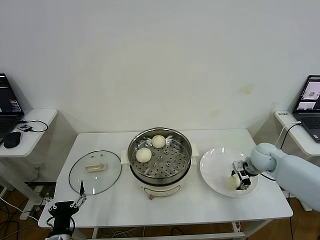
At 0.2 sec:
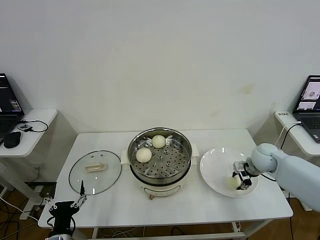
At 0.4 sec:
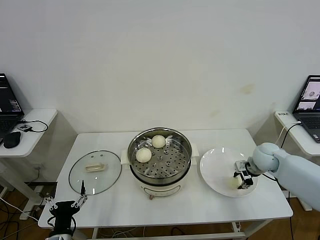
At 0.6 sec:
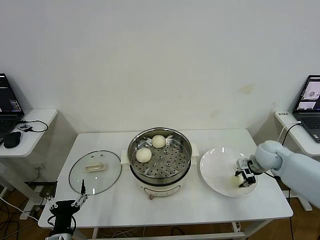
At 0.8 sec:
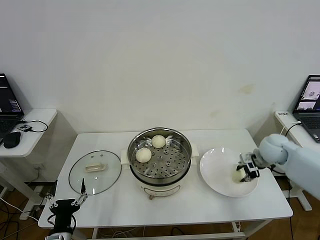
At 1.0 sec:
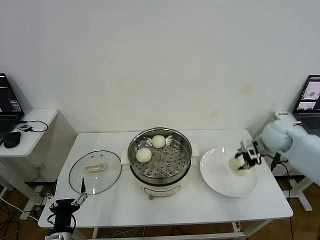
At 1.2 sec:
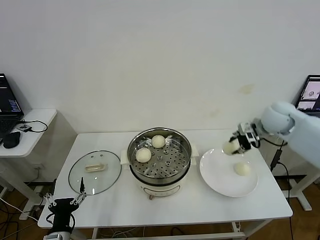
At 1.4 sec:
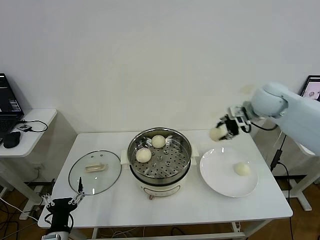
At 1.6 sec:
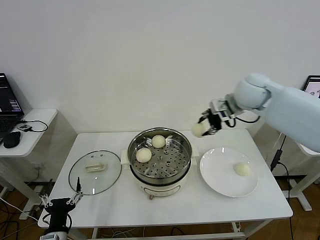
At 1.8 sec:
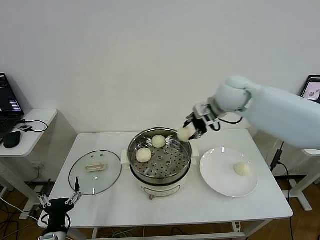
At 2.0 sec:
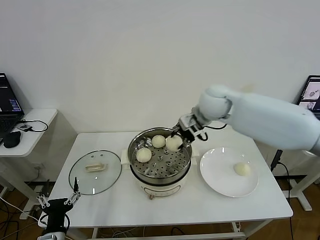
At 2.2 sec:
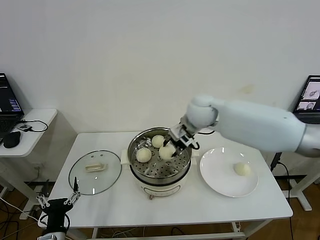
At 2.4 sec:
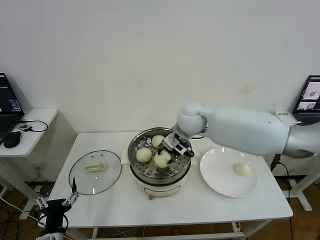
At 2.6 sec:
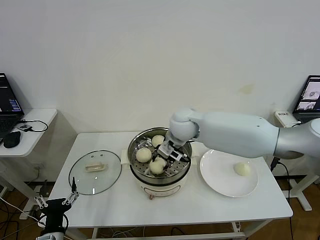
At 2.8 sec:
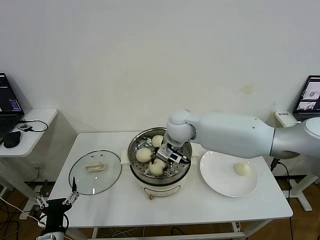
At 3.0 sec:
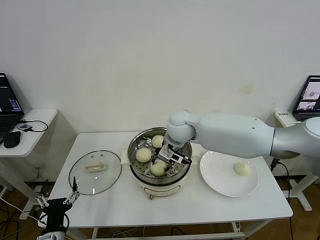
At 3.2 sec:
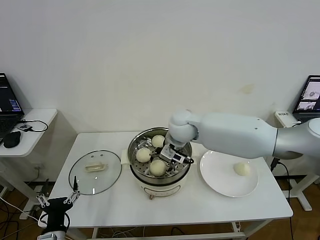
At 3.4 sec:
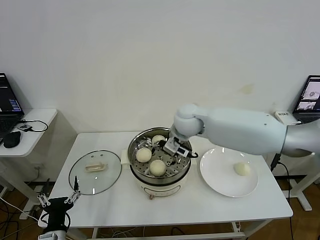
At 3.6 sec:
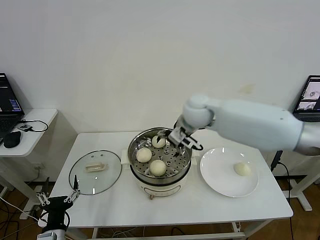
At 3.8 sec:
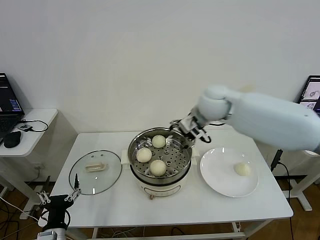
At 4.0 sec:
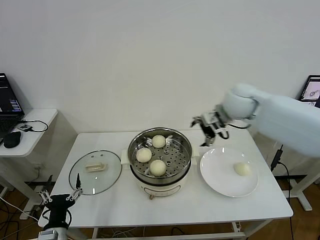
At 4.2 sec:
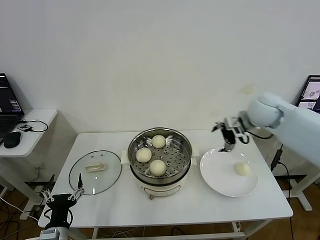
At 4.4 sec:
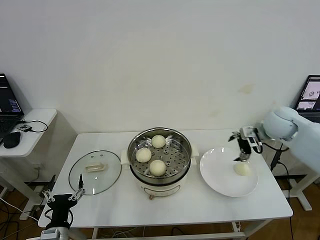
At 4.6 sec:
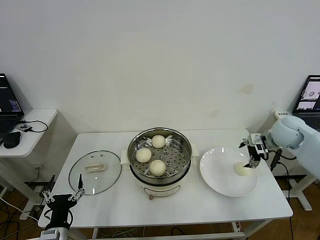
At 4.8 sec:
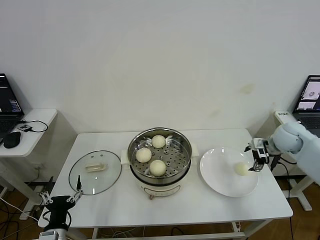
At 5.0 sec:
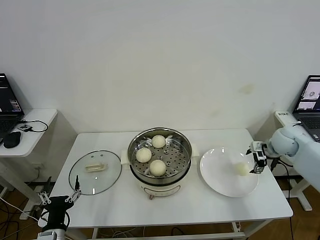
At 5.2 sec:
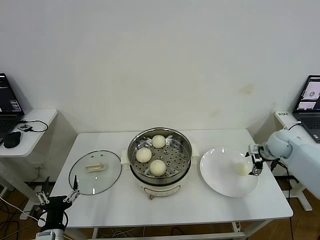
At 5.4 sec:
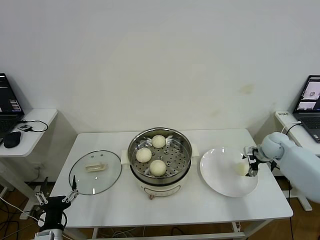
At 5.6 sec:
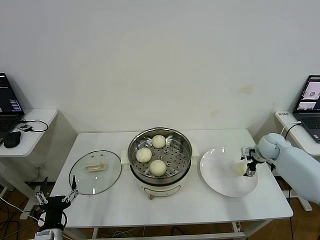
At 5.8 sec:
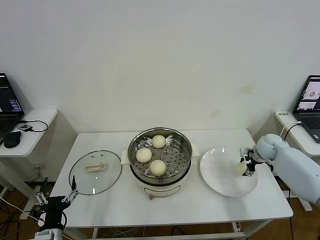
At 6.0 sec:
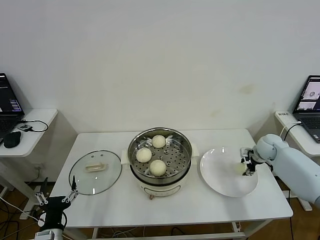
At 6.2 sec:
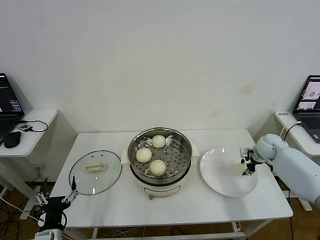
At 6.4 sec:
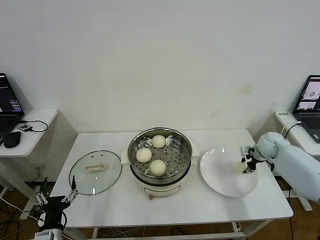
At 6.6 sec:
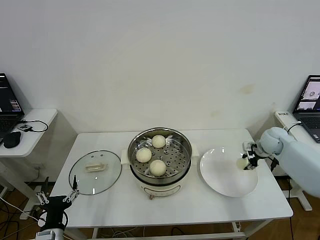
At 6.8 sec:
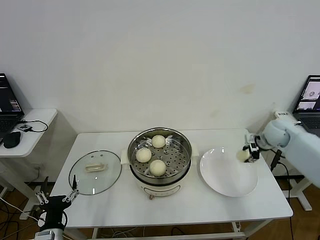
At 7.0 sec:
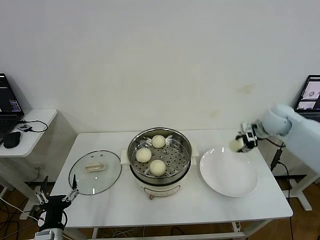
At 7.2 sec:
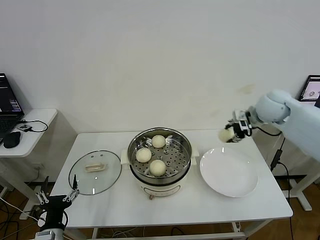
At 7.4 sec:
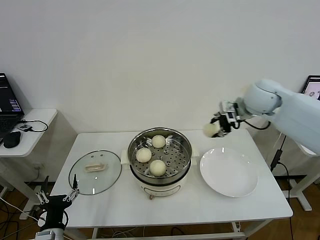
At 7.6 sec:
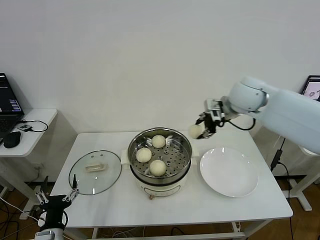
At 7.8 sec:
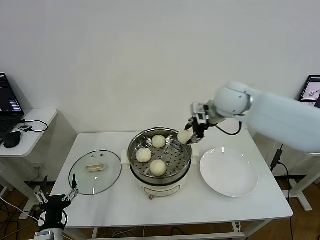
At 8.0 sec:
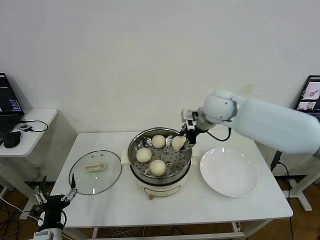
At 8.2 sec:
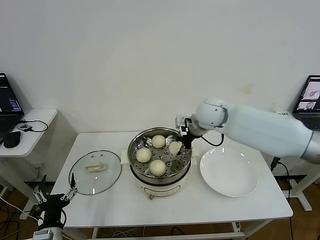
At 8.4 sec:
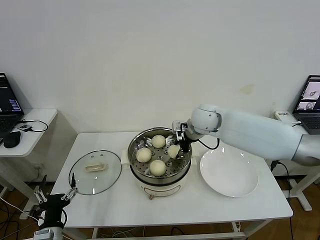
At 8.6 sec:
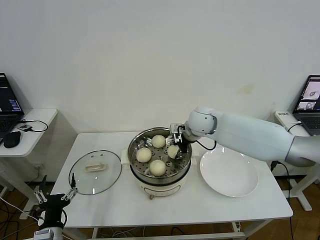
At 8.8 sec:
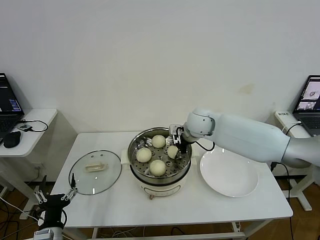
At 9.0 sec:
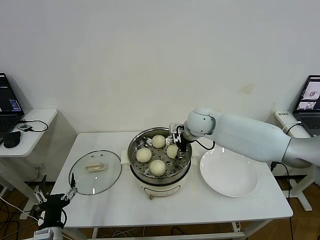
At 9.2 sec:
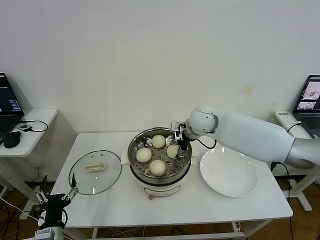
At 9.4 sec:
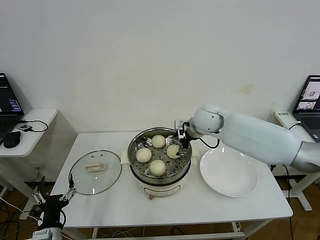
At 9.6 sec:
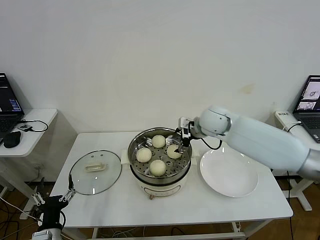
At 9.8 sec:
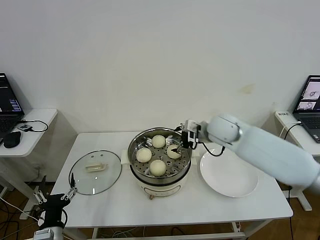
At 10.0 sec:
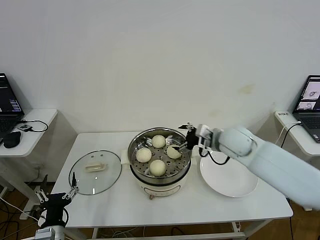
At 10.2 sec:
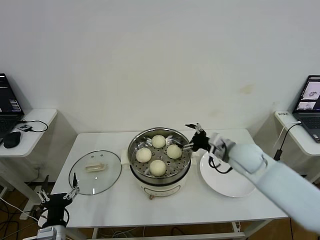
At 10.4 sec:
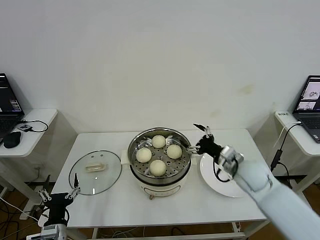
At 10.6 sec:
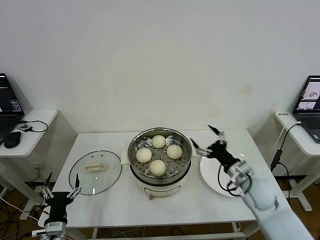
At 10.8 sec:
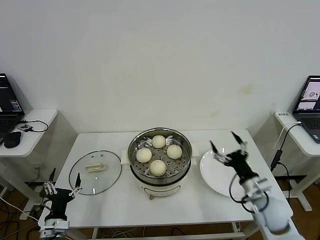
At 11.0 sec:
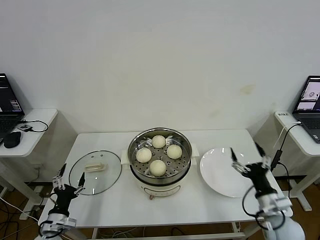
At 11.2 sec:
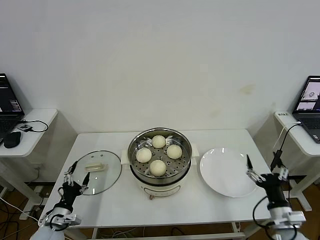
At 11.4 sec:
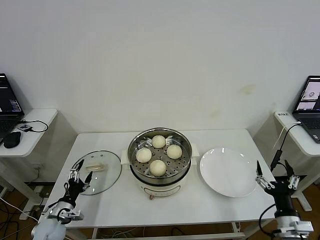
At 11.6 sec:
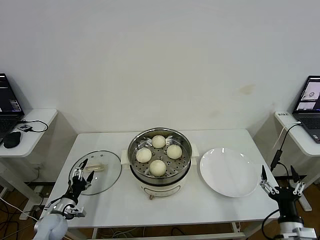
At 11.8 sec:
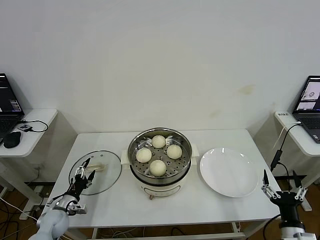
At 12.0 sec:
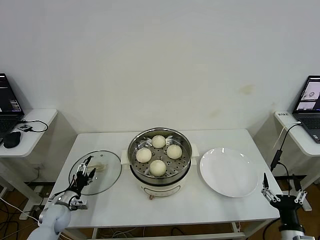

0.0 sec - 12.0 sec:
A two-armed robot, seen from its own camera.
Step, 0.4 sec - 3.2 sec: Place the baozi on the steamer with right gripper.
Step, 3.4 sec - 6.0 sec: Grasp the baozi in the plate with right gripper.
Step, 6.2 sec - 9.0 sec: Place the baozi on the steamer with right gripper.
0.0 sec - 1.6 sec: The right gripper shifts about 25 cm upward and to the left, and closes.
1.6 sec - 3.0 sec: The right gripper heads to the left and downward, covering approximately 20 cm.
3.0 sec - 4.4 sec: The right gripper moves to the right, approximately 30 cm, and opens.
4.4 sec - 6.0 sec: The right gripper travels downward by roughly 15 cm, and closes its fingers.
6.0 sec - 7.6 sec: The right gripper is displaced upward and to the left by some 30 cm.
7.6 sec - 9.0 sec: The right gripper travels downward and to the left by approximately 15 cm, and opens.
9.0 sec - 10.4 sec: The right gripper travels backward, to the right and downward by approximately 20 cm, and opens up.
10.4 sec - 12.0 sec: The left gripper travels forward, to the left and downward by about 20 cm. The right gripper moves backward, downward and to the right, some 30 cm.

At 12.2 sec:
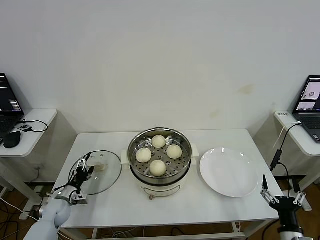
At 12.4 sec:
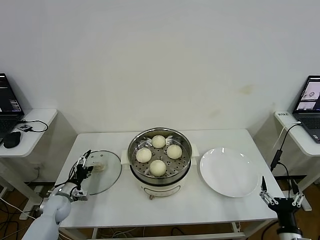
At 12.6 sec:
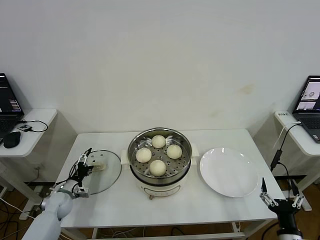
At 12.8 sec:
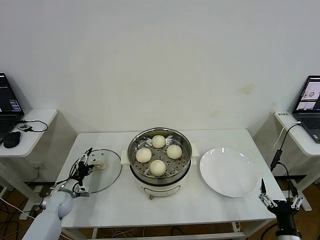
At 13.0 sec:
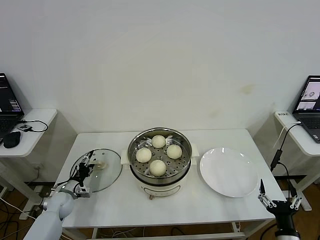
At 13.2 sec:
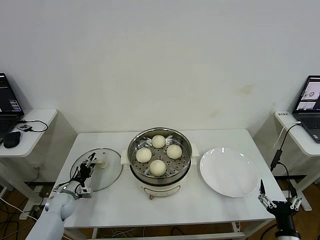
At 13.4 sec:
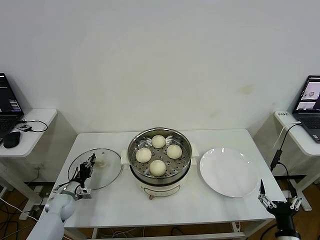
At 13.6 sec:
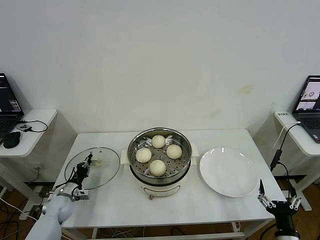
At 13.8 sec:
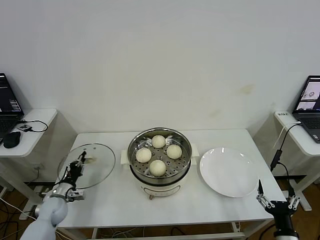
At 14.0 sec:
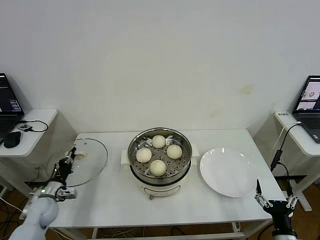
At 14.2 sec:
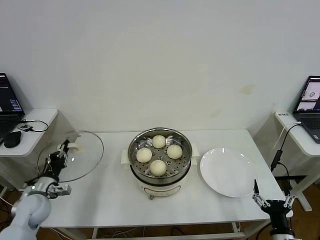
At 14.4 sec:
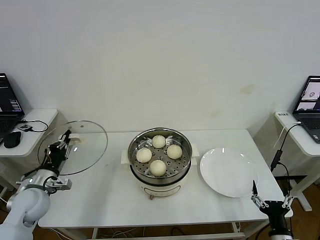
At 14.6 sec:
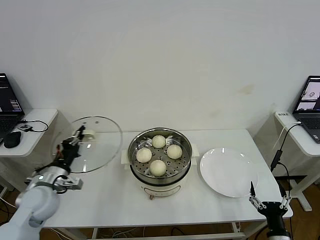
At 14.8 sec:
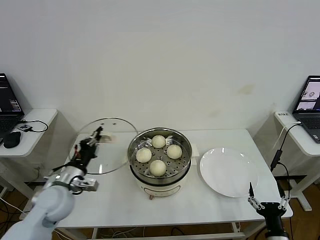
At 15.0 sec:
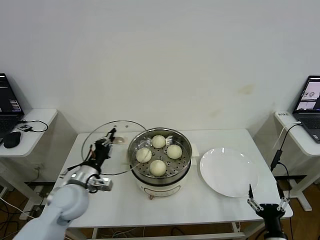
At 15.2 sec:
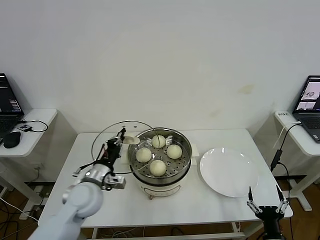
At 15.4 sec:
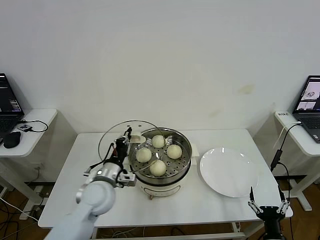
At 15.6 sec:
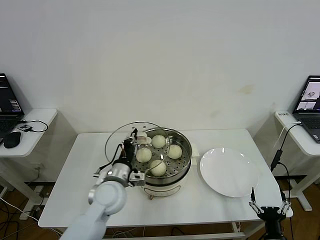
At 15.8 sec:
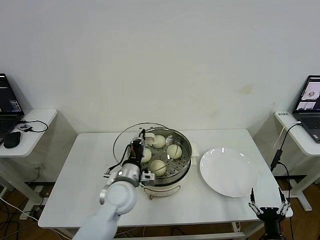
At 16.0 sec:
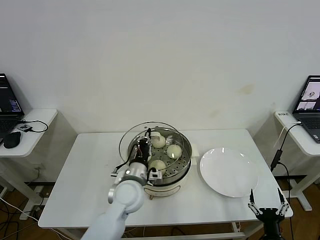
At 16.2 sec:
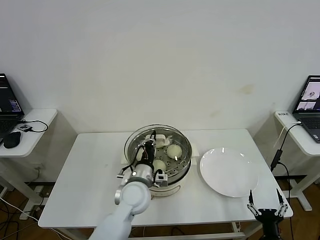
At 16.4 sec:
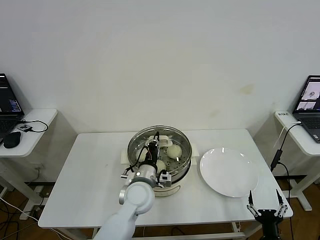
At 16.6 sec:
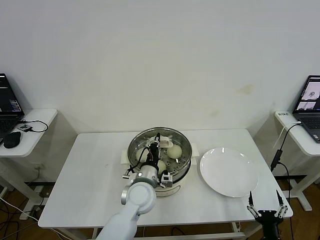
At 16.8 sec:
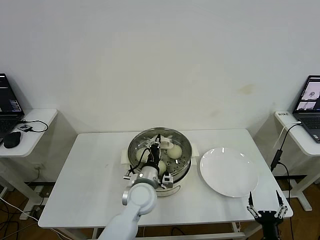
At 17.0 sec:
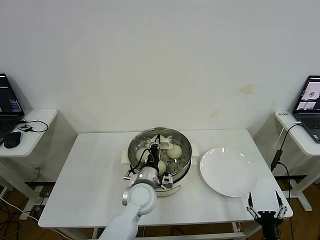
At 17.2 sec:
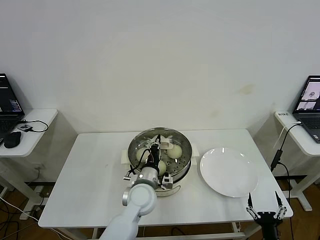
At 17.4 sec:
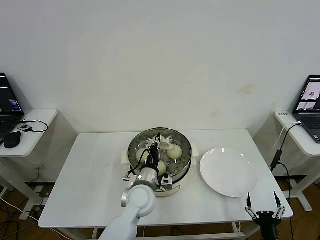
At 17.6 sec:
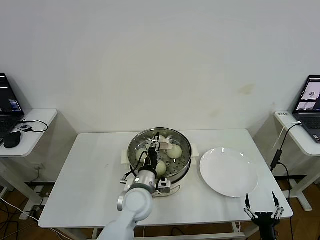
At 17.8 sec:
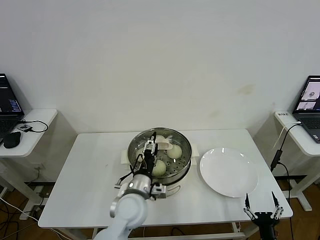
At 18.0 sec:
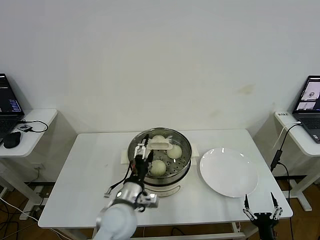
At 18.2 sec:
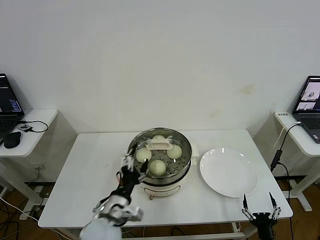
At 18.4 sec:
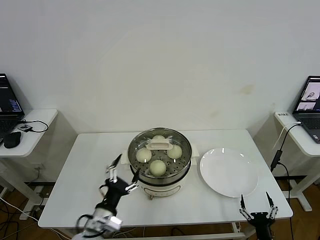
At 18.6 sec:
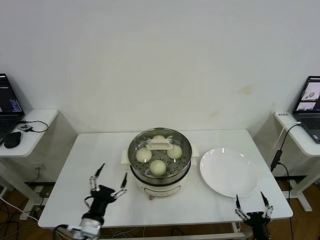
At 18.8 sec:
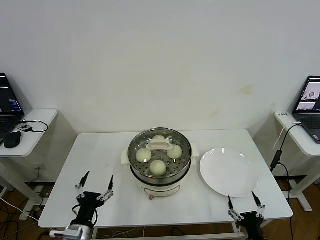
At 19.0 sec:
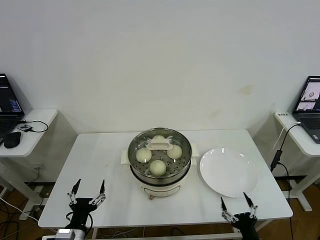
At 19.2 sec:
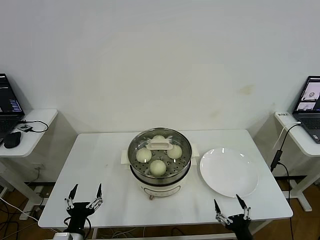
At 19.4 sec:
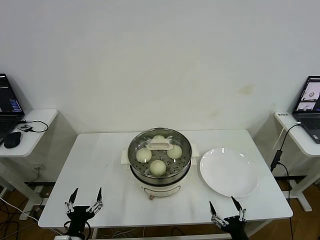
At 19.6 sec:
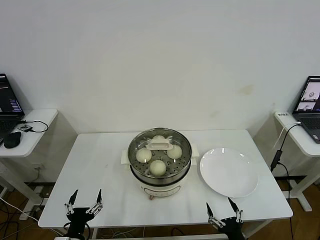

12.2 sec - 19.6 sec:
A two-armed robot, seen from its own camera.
Step, 13.8 sec - 17.2 sec: Place the pot lid on the steamer with left gripper.
12.2 sec - 13.6 sec: The left gripper closes.
13.6 sec - 15.2 sec: The left gripper travels upward and to the right by about 25 cm.
15.2 sec - 16.6 sec: The left gripper heads to the right, covering about 15 cm.
16.6 sec - 18.2 sec: The left gripper is displaced backward and to the left by roughly 15 cm, and opens.
18.2 sec - 19.6 sec: The right gripper travels to the left by approximately 5 cm; the left gripper moves to the left, backward and downward, approximately 20 cm.
